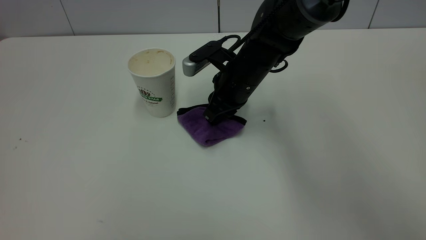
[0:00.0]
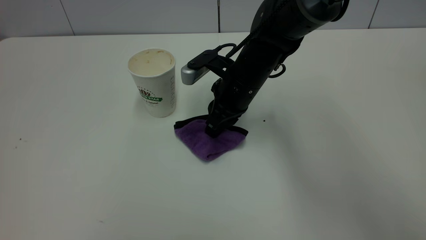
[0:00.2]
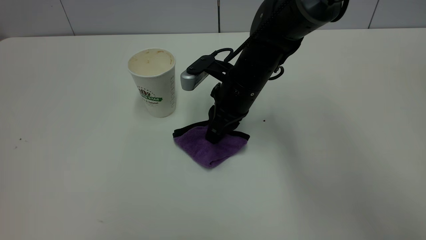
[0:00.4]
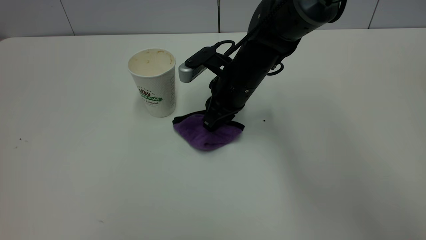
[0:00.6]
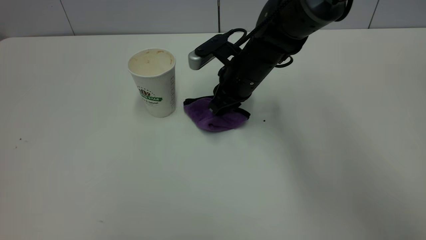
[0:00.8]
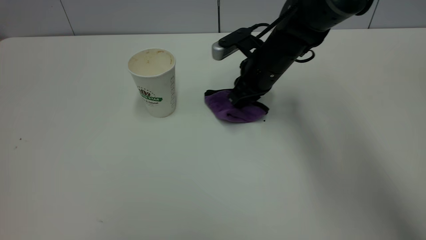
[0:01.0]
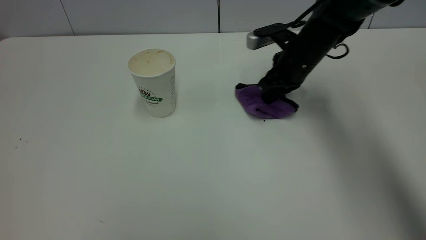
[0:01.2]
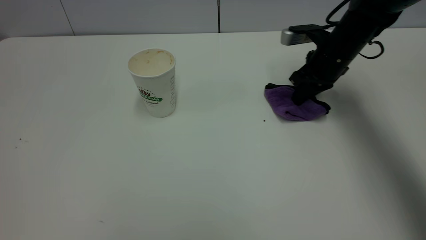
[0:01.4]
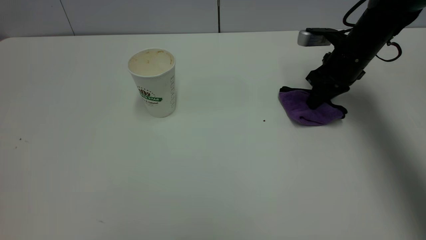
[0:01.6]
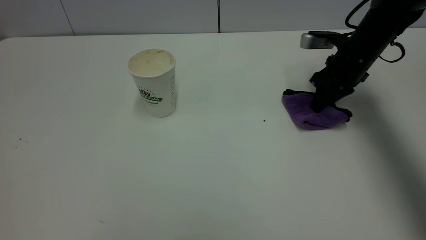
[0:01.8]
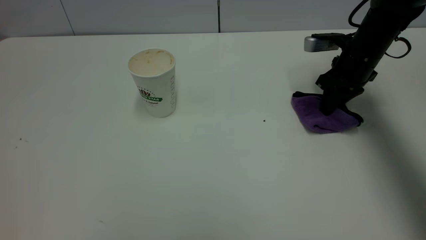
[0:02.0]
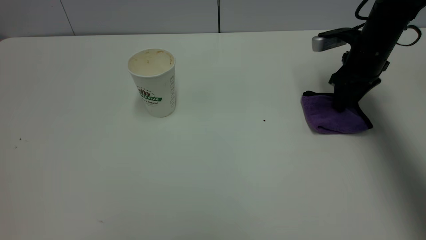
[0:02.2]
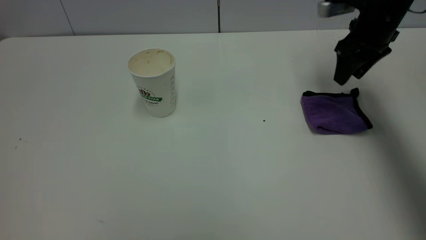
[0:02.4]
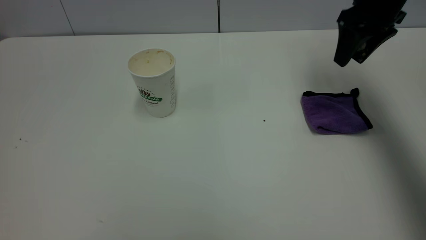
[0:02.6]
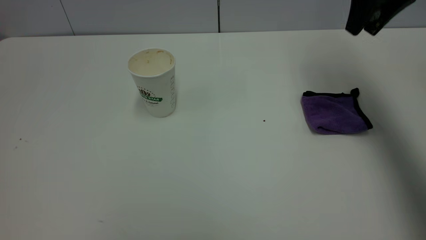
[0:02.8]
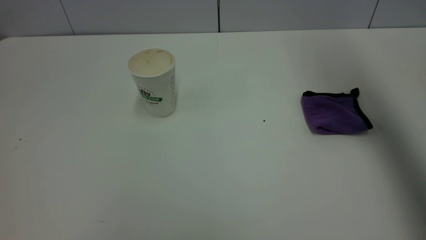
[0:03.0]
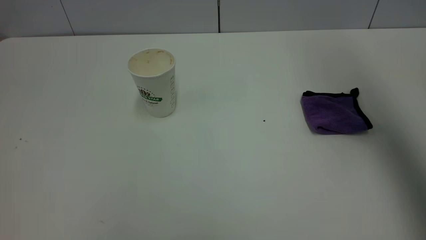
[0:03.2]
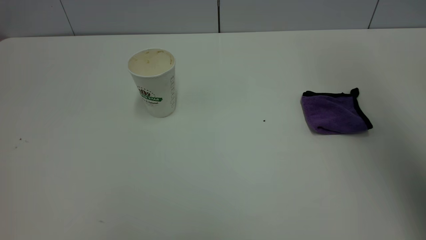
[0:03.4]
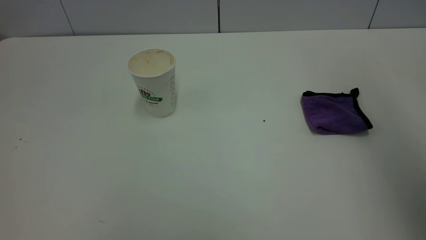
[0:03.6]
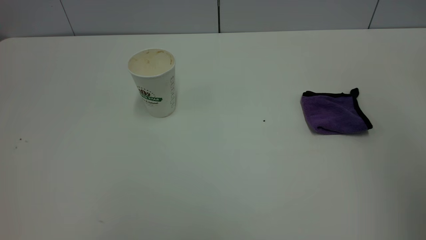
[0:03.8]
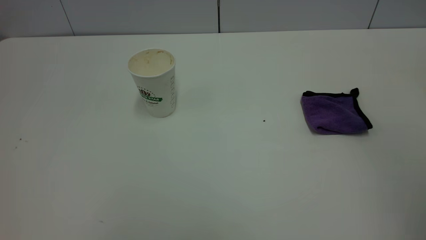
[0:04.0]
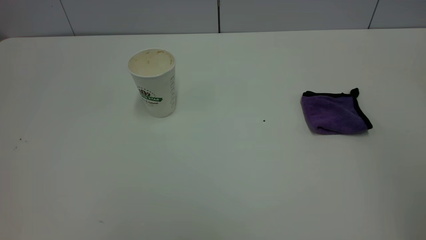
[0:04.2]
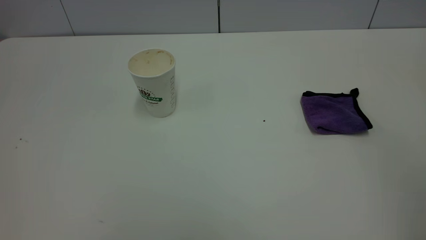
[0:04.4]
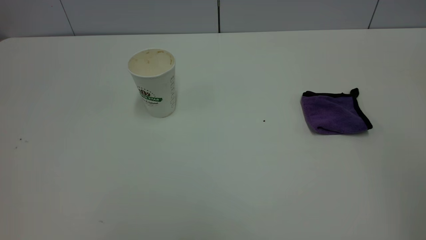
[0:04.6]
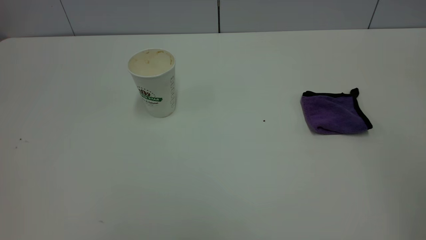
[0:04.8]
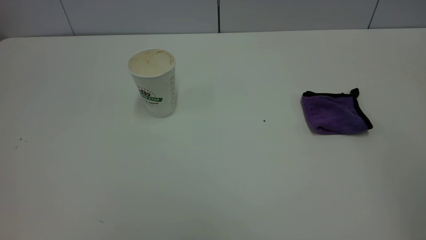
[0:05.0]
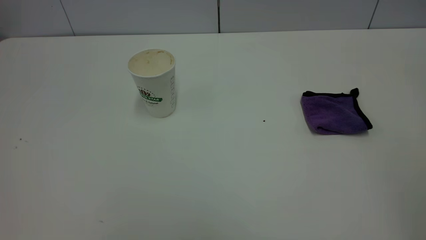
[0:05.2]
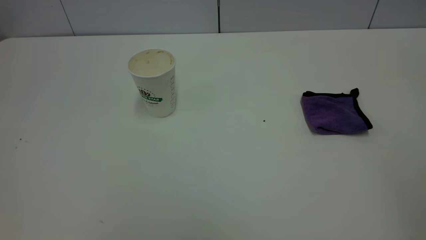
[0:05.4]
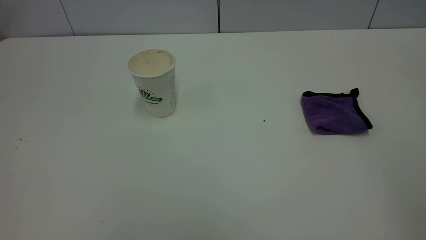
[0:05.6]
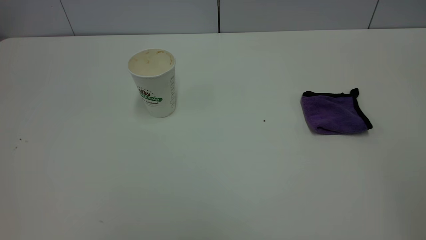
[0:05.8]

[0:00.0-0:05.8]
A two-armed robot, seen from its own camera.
Task of the whole recording: the left gripper pick up the fallen cup and place it upright, the right gripper grasp the purple rag and wipe the tea stain on the table, the right gripper put the purple rag back in its original position.
Step, 0:00.0 to 0:02.4: Wipe the stains off the table with a rag.
0:00.0 to 0:01.4: The right gripper heads to the right, covering about 20 cm.
0:01.4 to 0:02.8: The right gripper heads upward, covering approximately 20 cm, and opens.
0:02.8 to 0:04.4: The right gripper moves backward, some 40 cm.
